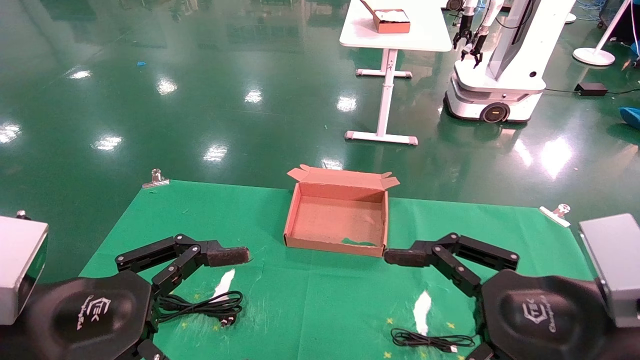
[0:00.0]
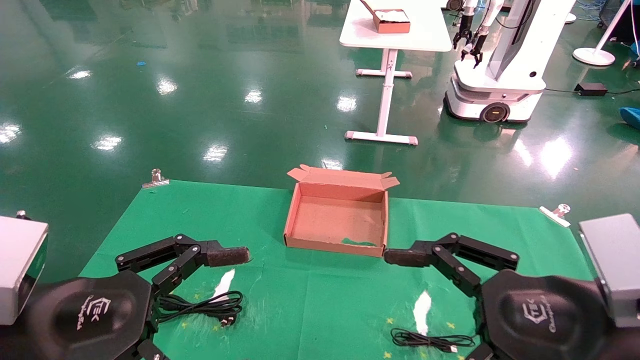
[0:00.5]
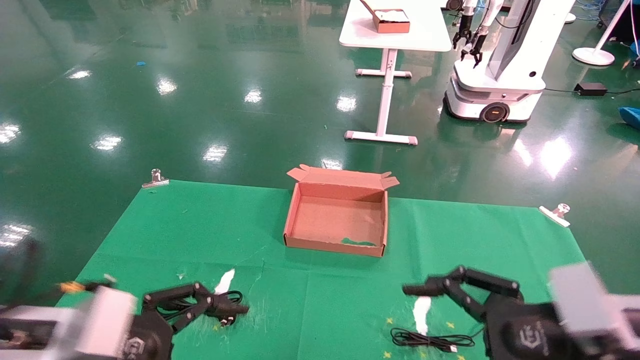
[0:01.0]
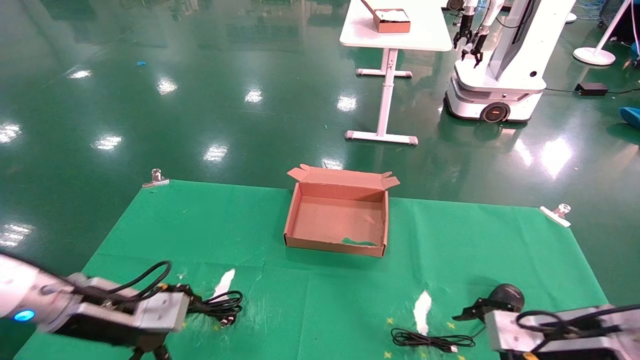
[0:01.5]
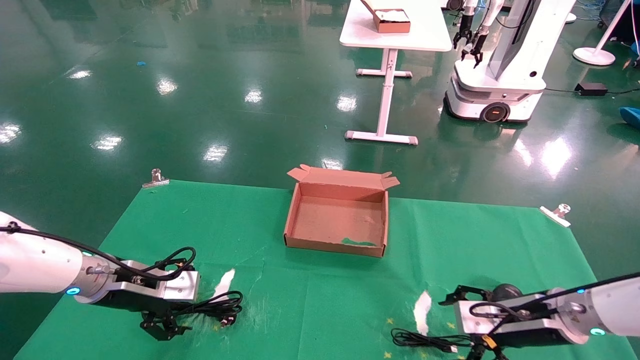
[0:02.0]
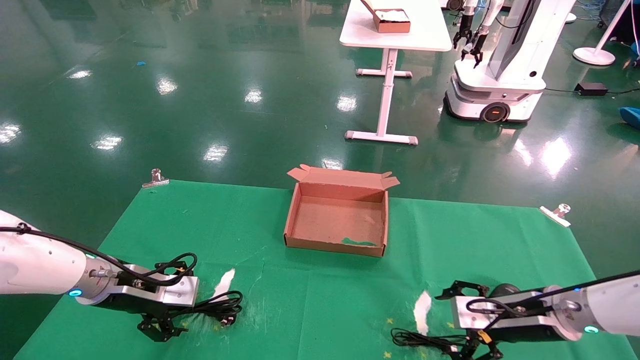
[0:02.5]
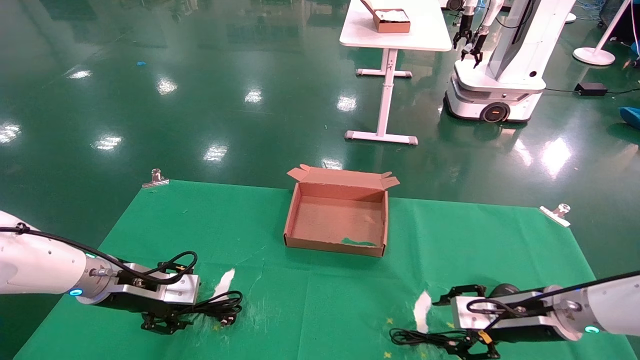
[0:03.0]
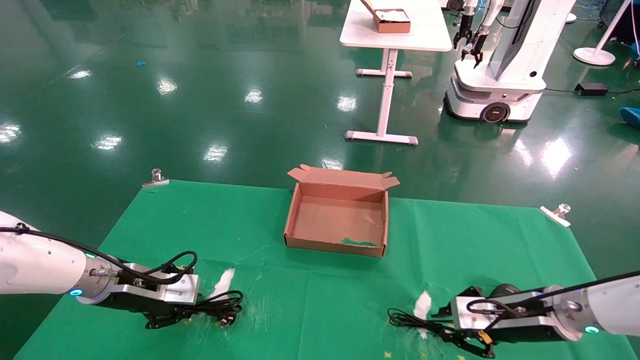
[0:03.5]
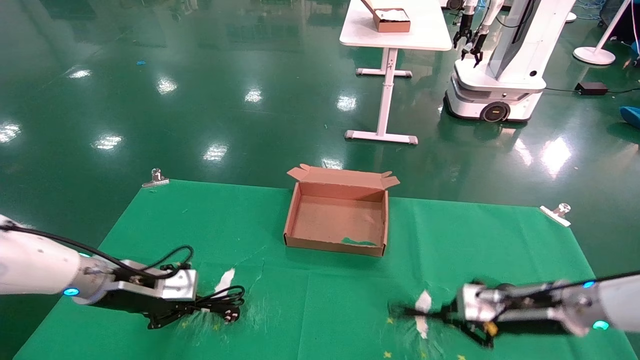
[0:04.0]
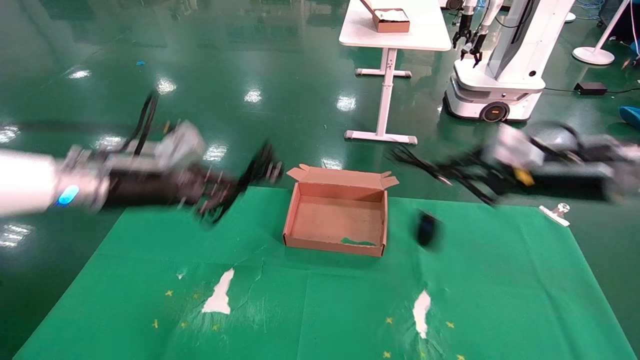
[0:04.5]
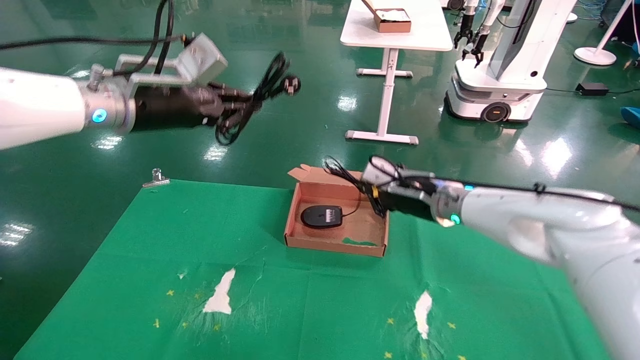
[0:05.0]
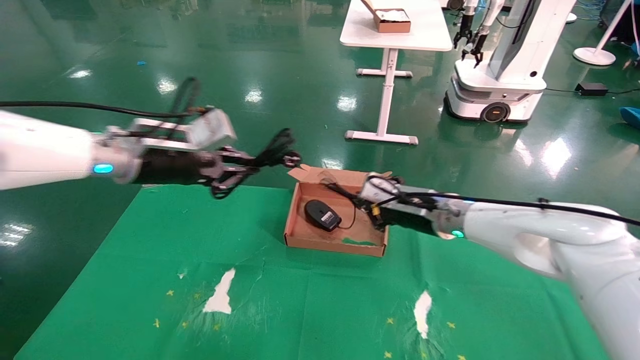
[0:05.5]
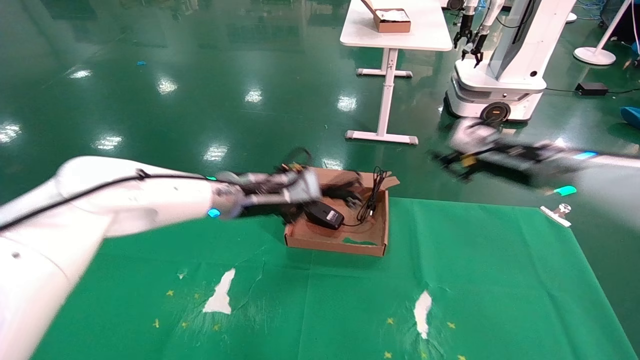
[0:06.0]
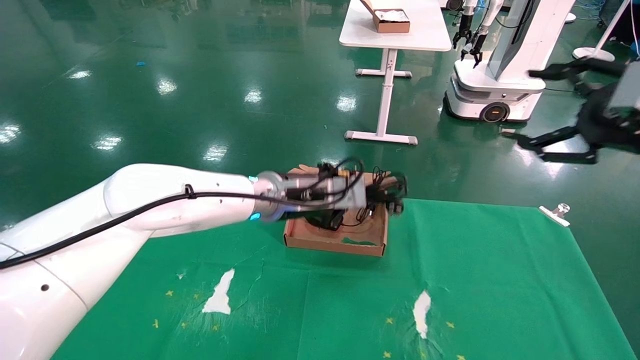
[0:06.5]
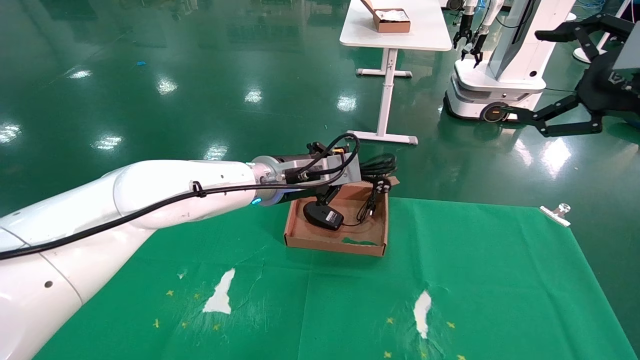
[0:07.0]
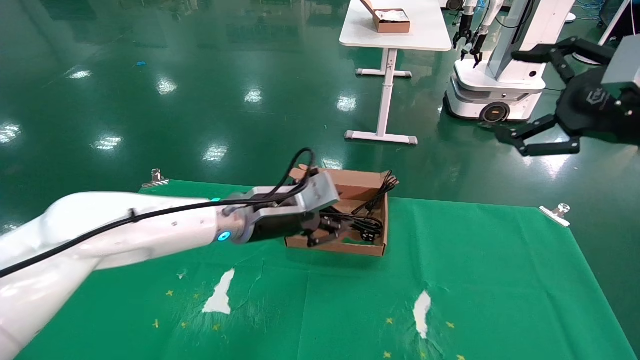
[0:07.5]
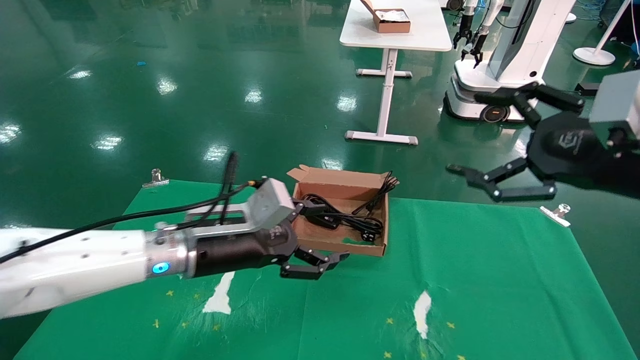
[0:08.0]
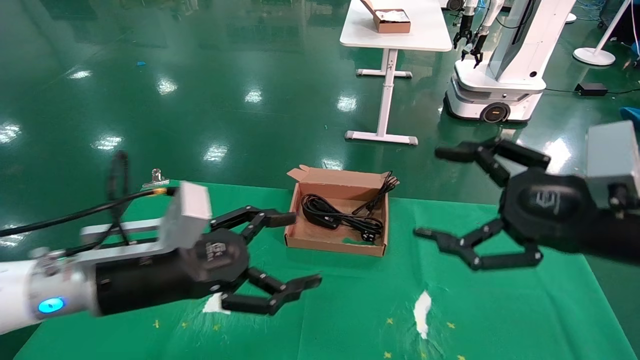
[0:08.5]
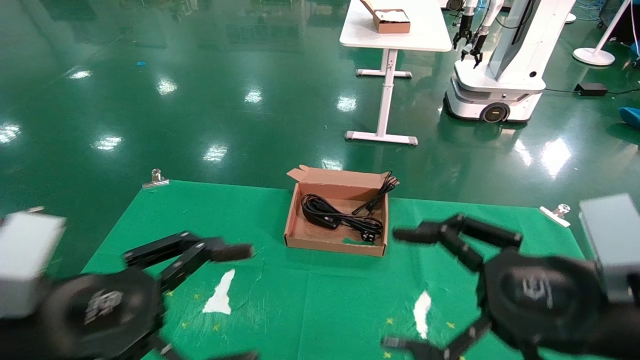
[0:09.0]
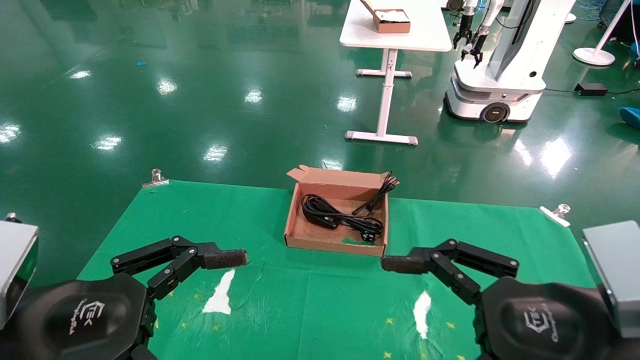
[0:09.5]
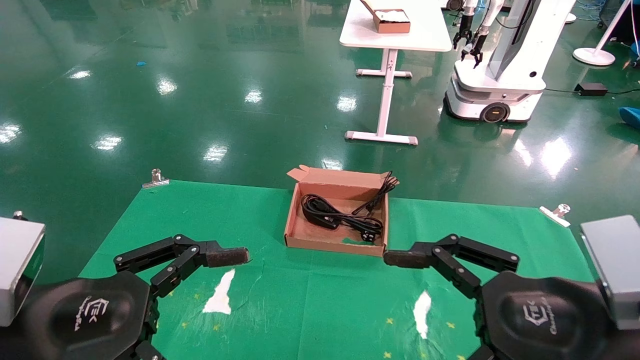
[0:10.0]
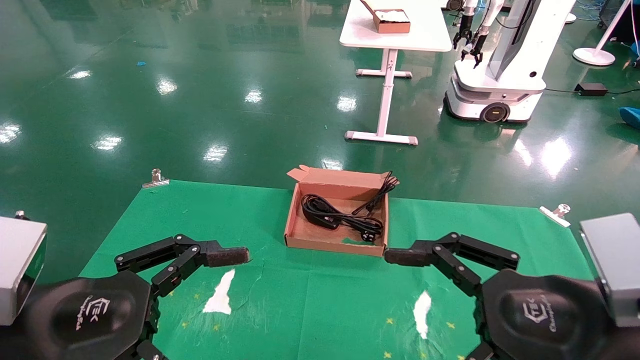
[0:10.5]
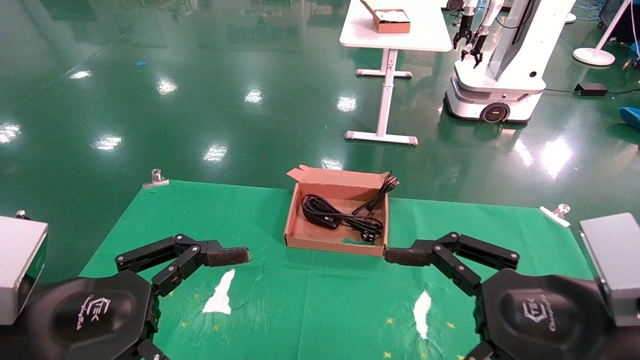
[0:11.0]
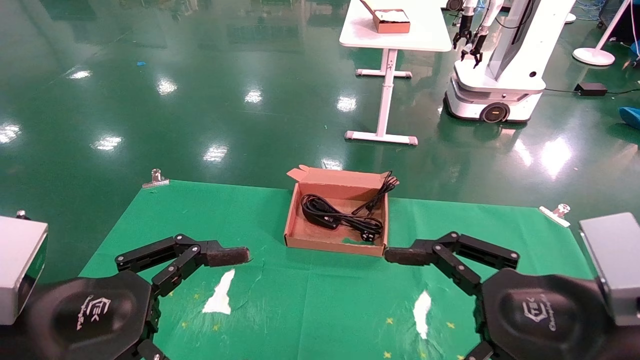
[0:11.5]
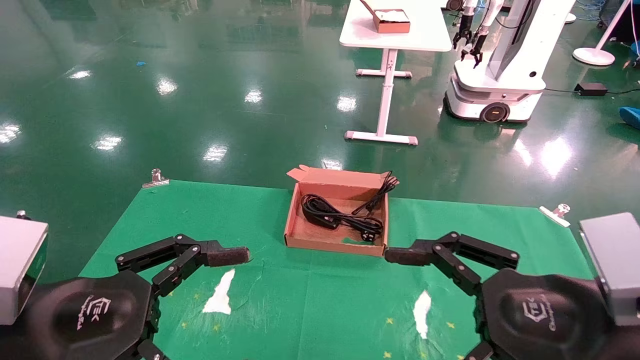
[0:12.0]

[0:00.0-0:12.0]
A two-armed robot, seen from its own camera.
Step, 0:01.5 to 0:03.5: Grab and lift both the mouse and power cord from the accessory packaging area at the same time.
Step, 0:04.0 to 0:07.0: Place the mouse and power cord into the box.
0:00.0 to 0:02.0: The left gripper shifts approximately 25 cm forward. The right gripper is displaced forward and downward by roughly 25 cm.
0:02.0 to 0:04.0: The left gripper closes its fingers. The right gripper closes.
0:04.0 to 0:06.0: The right gripper goes up and down, roughly 15 cm each way, reversing 2 times. The left gripper goes approximately 20 cm to the right and upward.
0:06.0 to 0:08.0: The right gripper goes some 15 cm backward, and opens up. The left gripper goes approximately 10 cm backward, and opens up.
0:08.0 to 0:10.0: The left gripper shifts some 20 cm backward and to the left. The right gripper heads downward, backward and to the left, covering approximately 15 cm.
0:10.0 to 0:12.0: The two grippers keep their place.

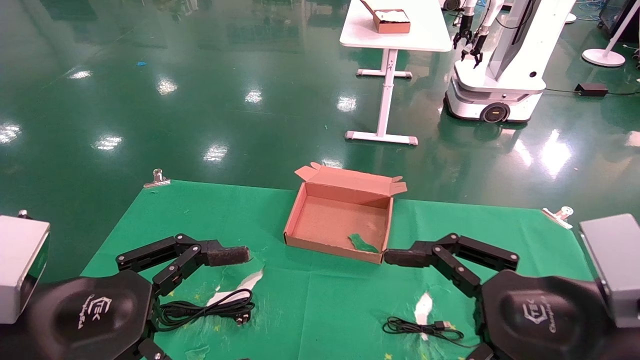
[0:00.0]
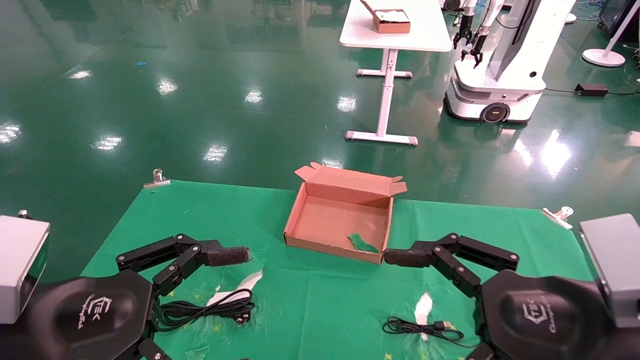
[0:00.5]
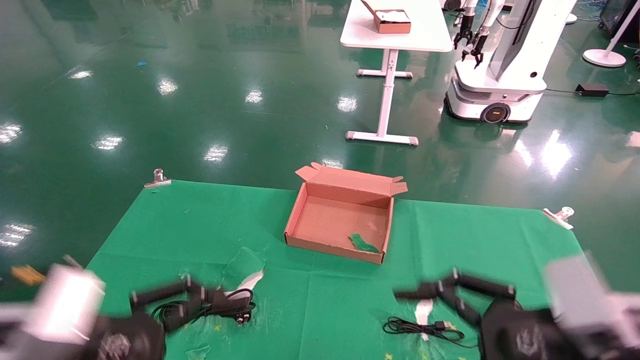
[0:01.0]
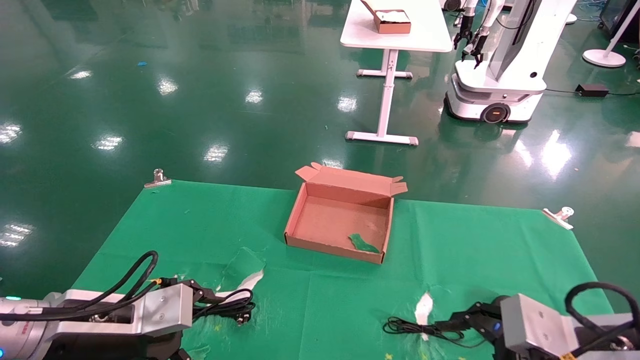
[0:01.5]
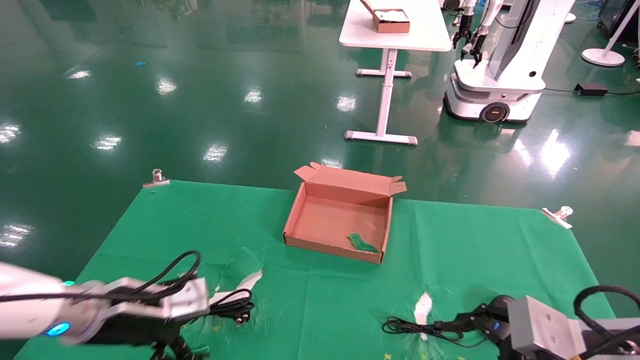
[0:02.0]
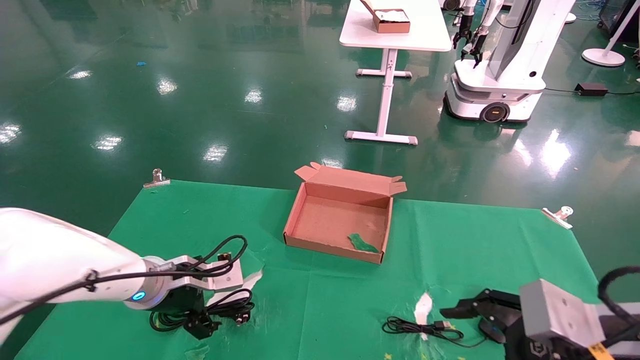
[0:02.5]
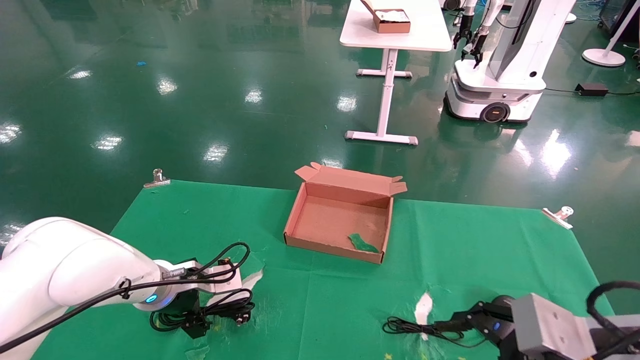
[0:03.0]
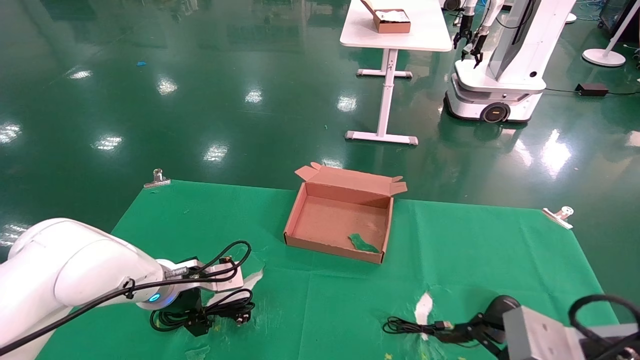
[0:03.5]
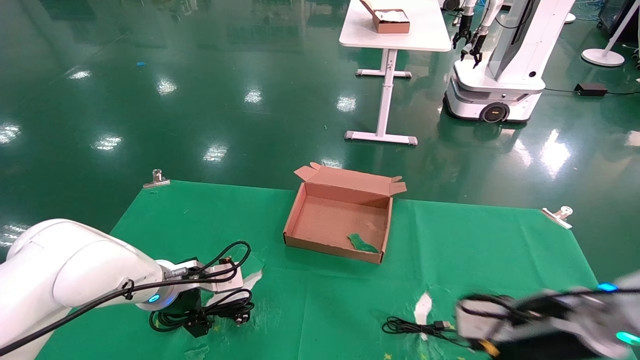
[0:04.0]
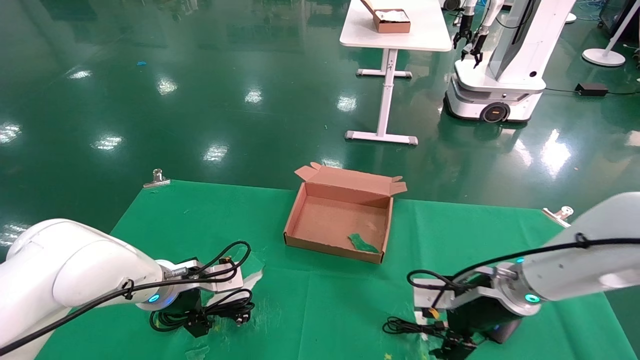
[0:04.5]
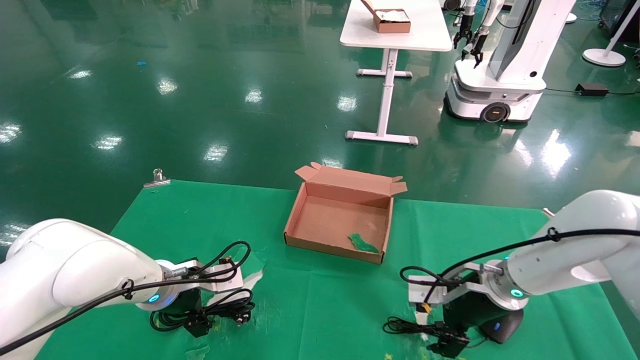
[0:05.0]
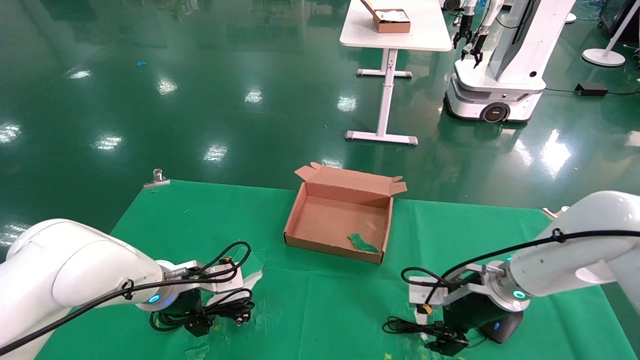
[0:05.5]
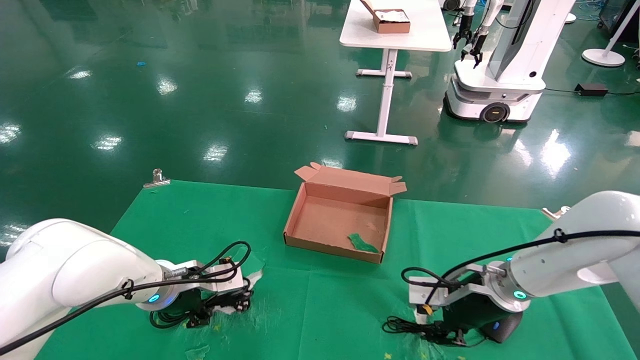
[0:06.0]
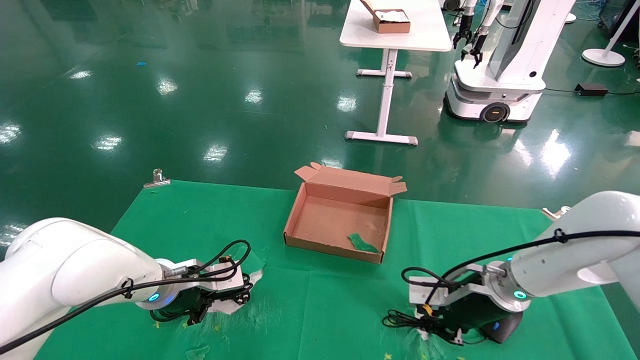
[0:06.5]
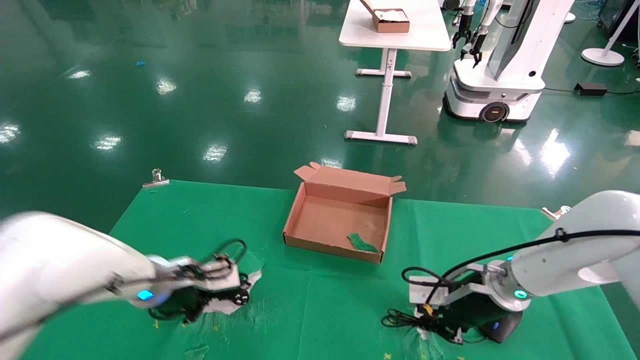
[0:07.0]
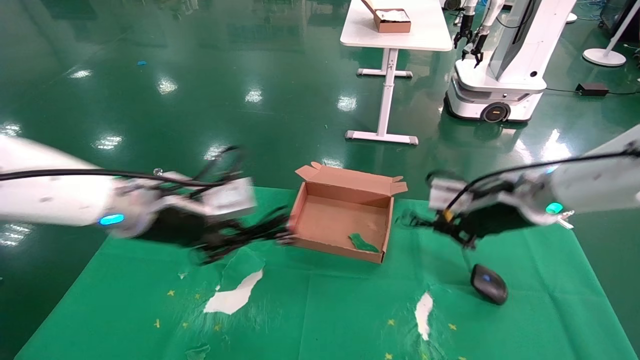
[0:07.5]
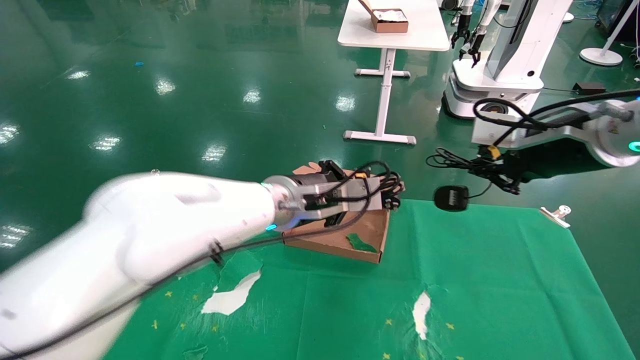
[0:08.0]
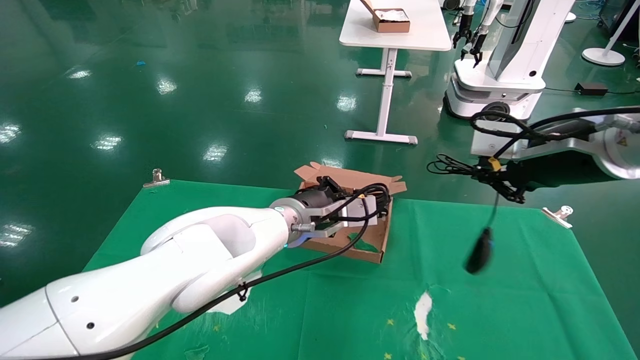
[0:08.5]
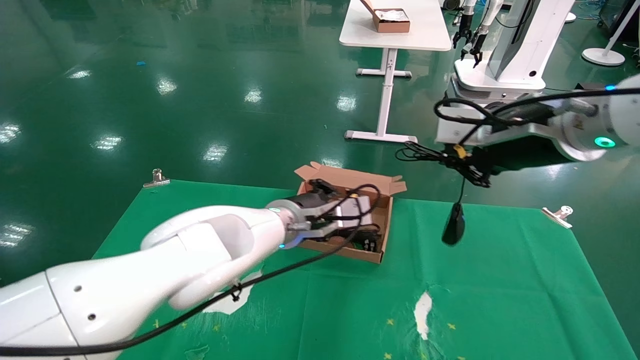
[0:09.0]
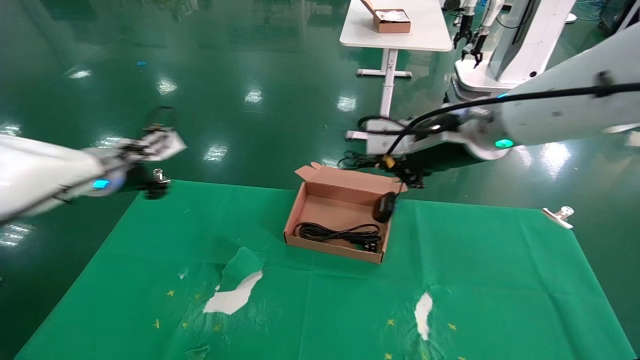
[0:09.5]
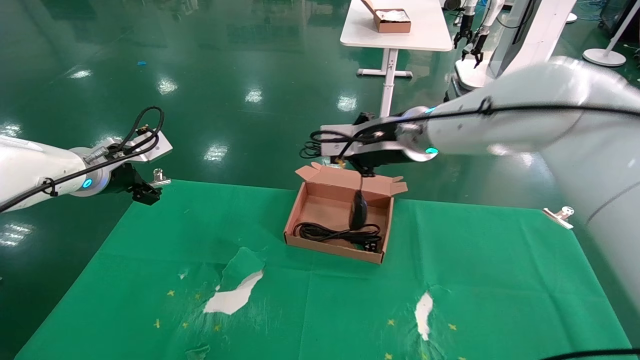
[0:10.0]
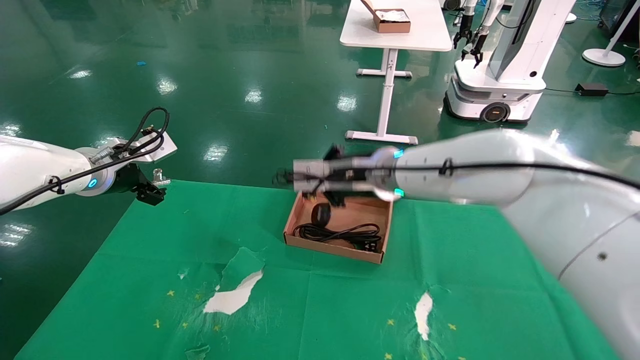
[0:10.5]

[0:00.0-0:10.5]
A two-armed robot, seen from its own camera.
Step, 0:02.0 to 0:07.0: Grab and lift both the mouse and power cord from the accessory packaging area at the same time.
0:00.0 to 0:02.0: The left gripper heads forward and downward, covering some 15 cm, while the right gripper moves downward, some 5 cm.
0:02.0 to 0:04.0: Both grippers move forward, some 10 cm.
0:04.0 to 0:06.5: The left gripper closes up; the right gripper travels forward by roughly 10 cm, and closes.
0:06.5 to 0:08.5: The right gripper goes about 20 cm upward; the left gripper is displaced to the right and upward by approximately 20 cm.
0:08.5 to 0:10.5: The left gripper goes roughly 30 cm to the left, and opens its fingers, while the right gripper travels to the left and forward by roughly 25 cm.
